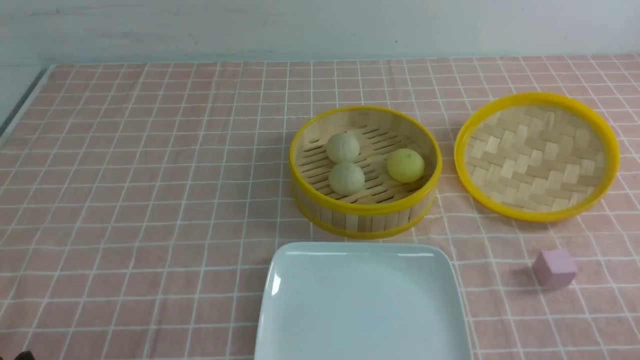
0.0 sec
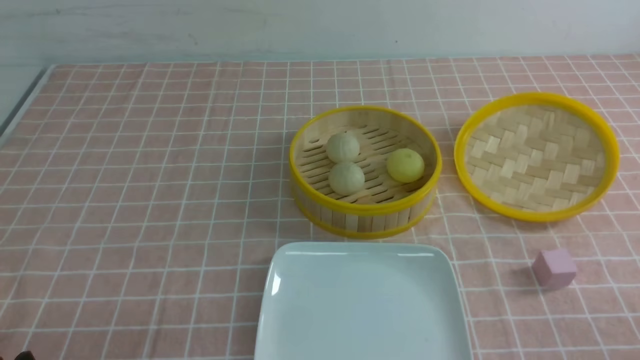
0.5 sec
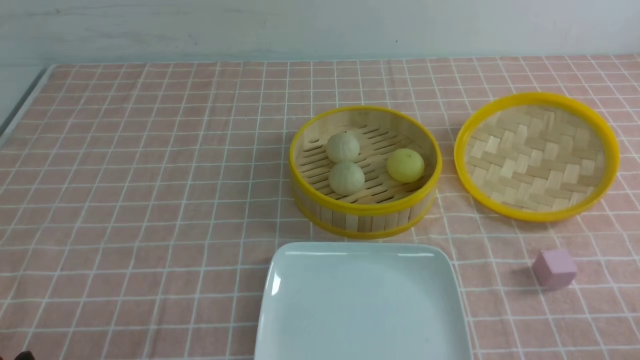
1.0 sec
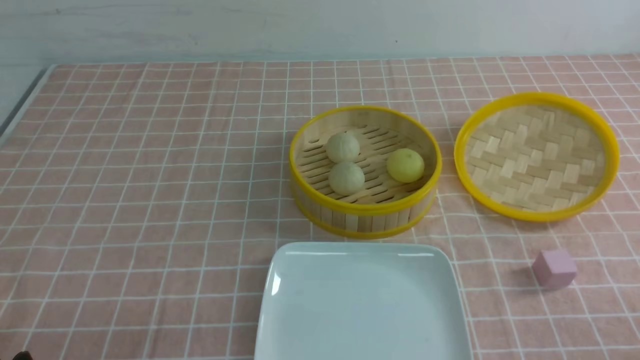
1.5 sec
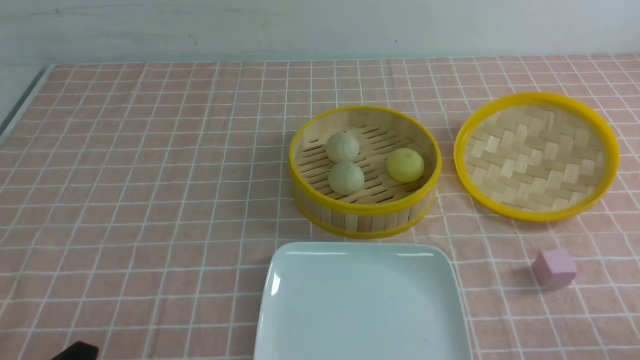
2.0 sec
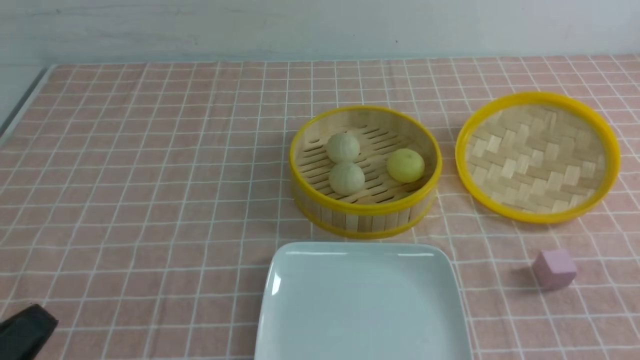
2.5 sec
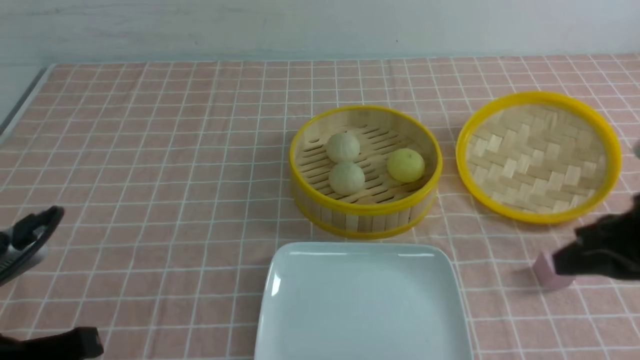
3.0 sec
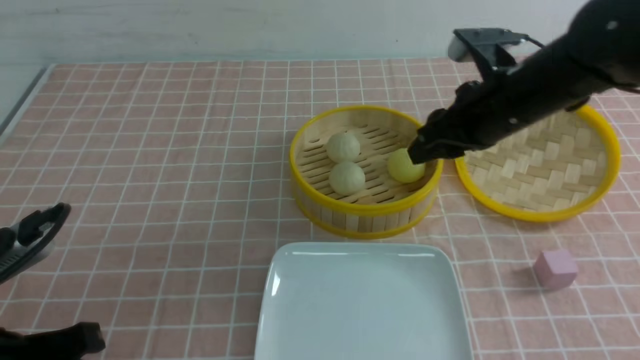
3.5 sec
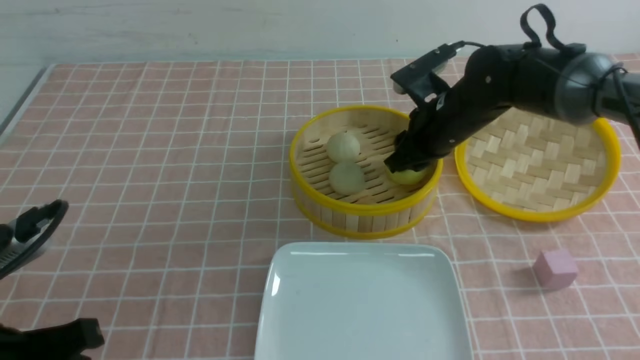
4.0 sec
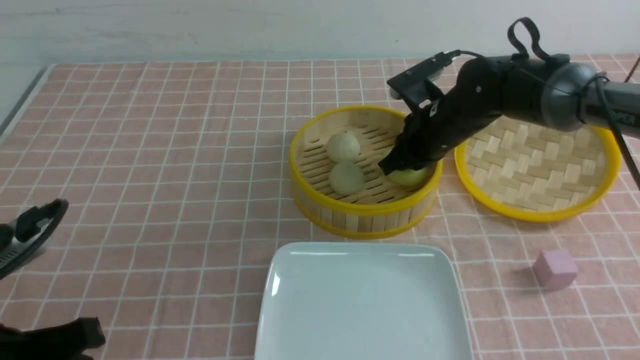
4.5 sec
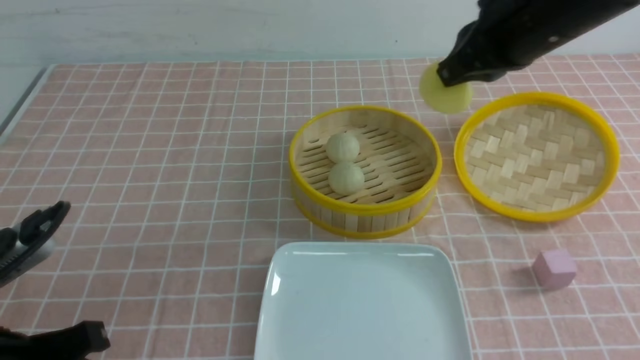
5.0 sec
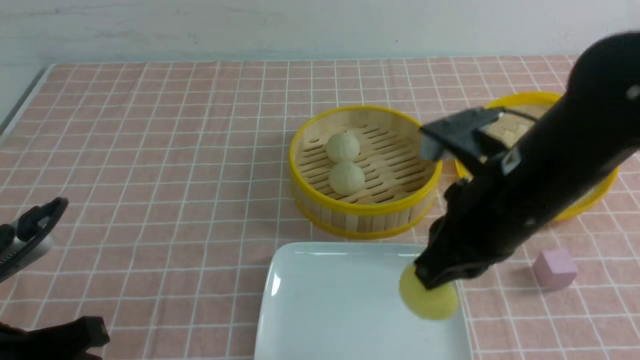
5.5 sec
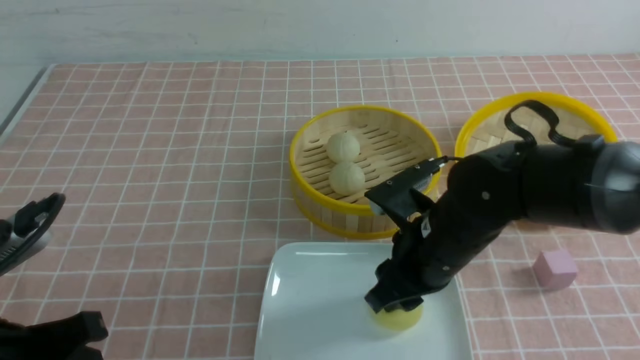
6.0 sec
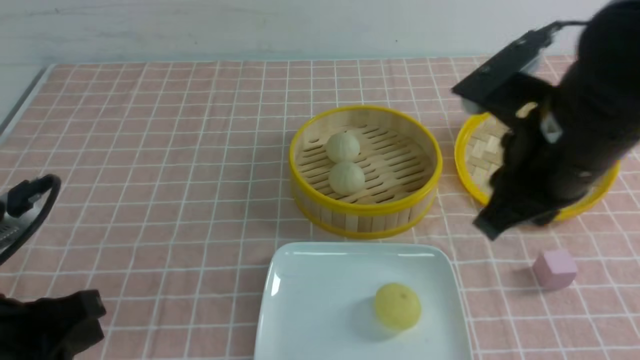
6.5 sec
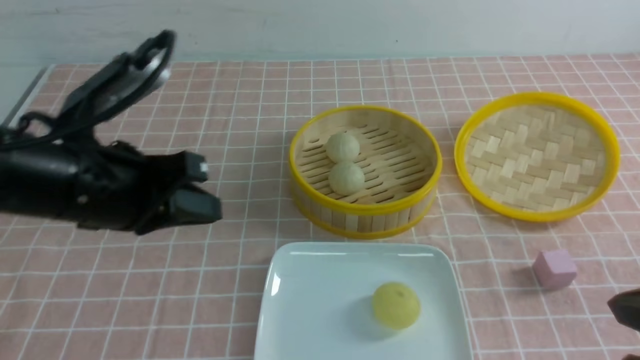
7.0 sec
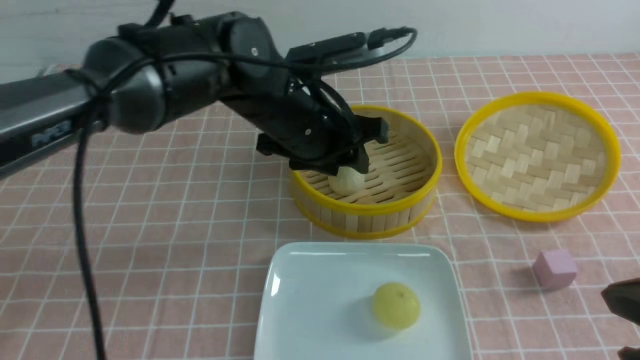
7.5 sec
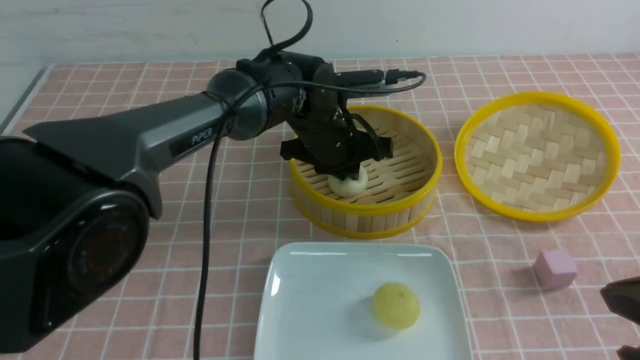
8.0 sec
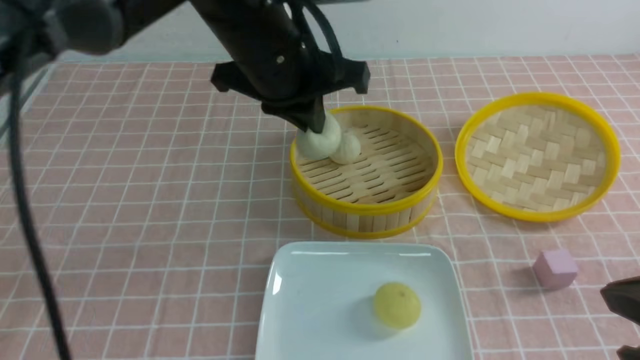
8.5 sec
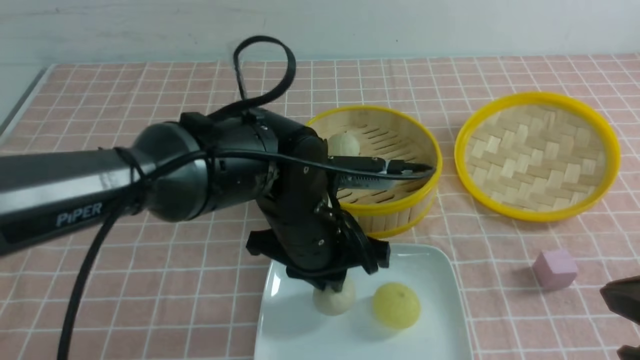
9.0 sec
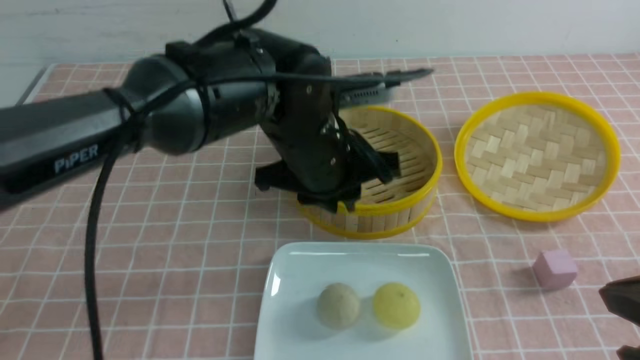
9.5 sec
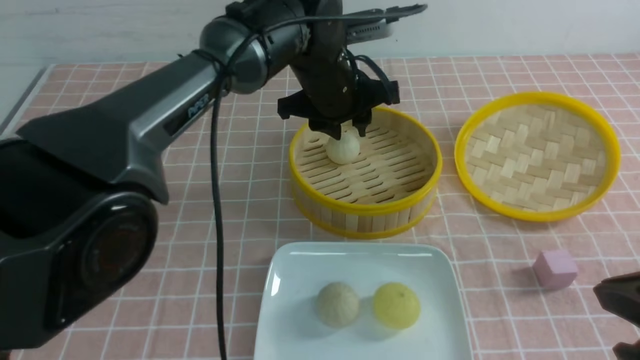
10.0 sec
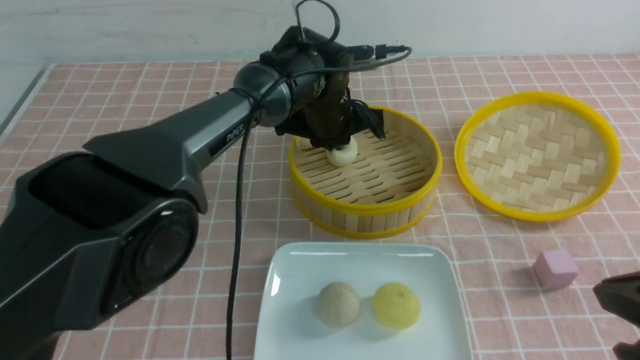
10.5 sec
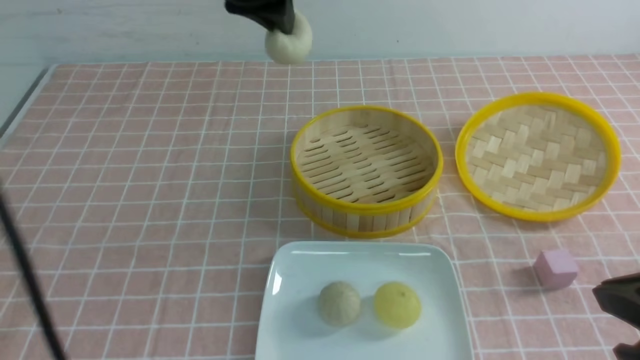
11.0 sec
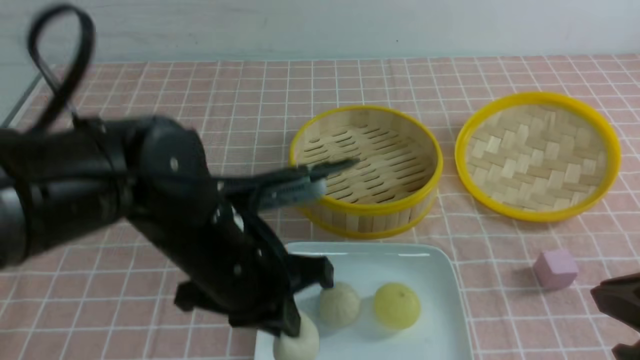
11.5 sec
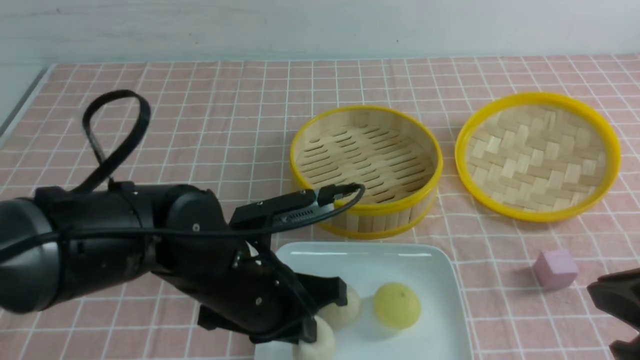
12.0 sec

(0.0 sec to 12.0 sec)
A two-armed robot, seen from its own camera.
Step, 0.0 sec - 4.5 sec: use the right arm to grab the steamed stuffed bun that is closest to it.
Step, 5.0 sec - 6.0 sec: use the right arm to put the steamed stuffed bun into the plate.
Step, 6.5 sec - 8.0 sec: use the left arm to grab the steamed stuffed bun that is closest to it.
Step, 8.5 sec - 9.0 sec: use the left arm to put the steamed stuffed bun into the plate.
Step, 9.5 sec - 10.5 sec: use the left arm to grab the steamed stuffed bun that is closest to it.
2.0 sec - 4.0 sec: The left gripper is displaced upward and forward by approximately 10 cm, and closes up. Meanwhile the right gripper shifts approximately 40 cm forward and to the left, and closes, then reopens.
4.0 sec - 6.0 sec: The right gripper shifts approximately 15 cm backward, and closes, then opens again.
6.0 sec - 8.0 sec: The right gripper moves backward, to the right and upward, approximately 25 cm, and closes its fingers. The left gripper shifts about 40 cm forward and to the right, and opens, then closes once more.
8.0 sec - 10.0 sec: The left gripper reaches about 15 cm backward, then returns, and opens up.
10.0 sec - 12.0 sec: The left gripper is displaced backward by about 20 cm, and closes.

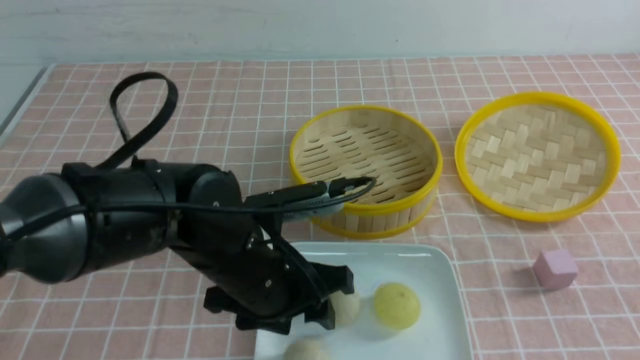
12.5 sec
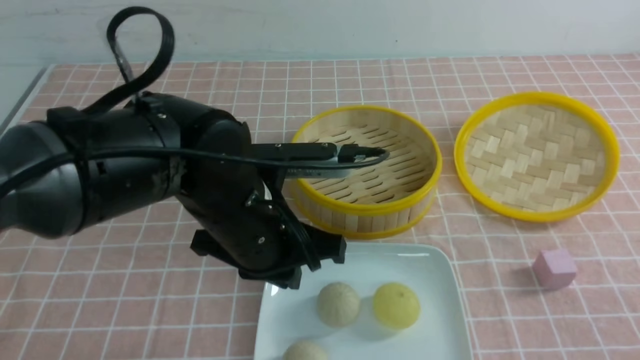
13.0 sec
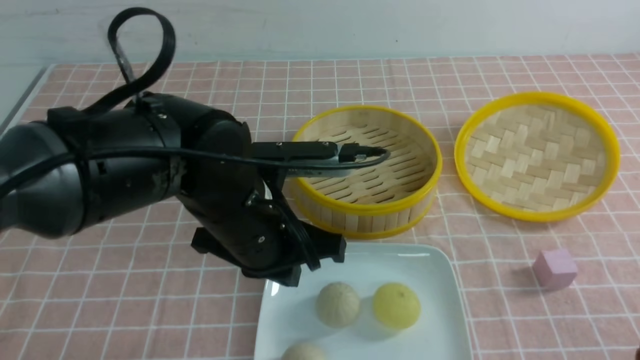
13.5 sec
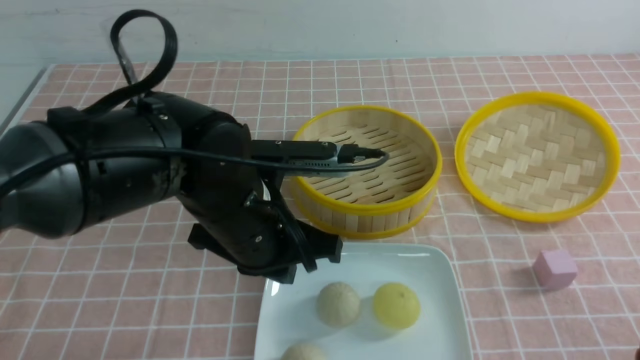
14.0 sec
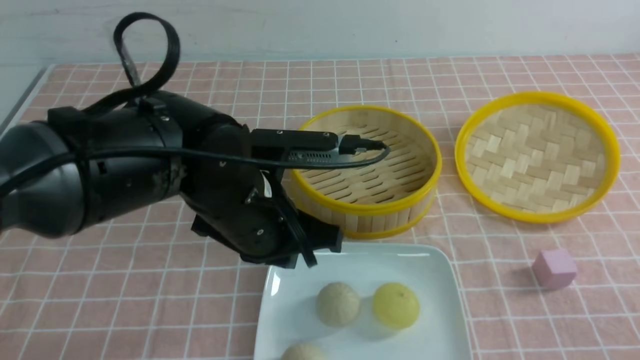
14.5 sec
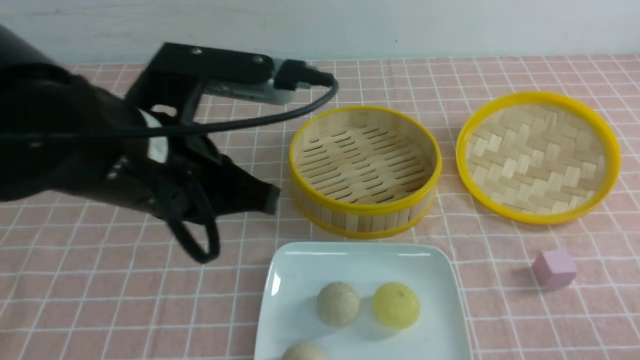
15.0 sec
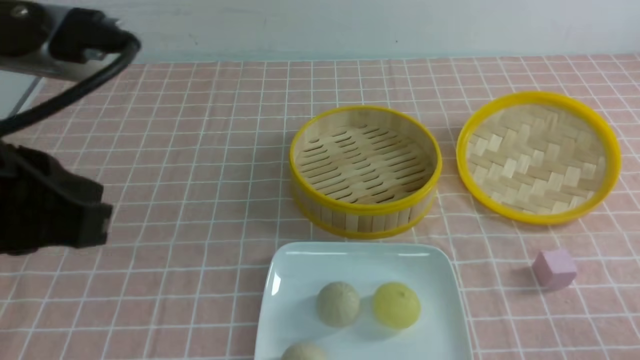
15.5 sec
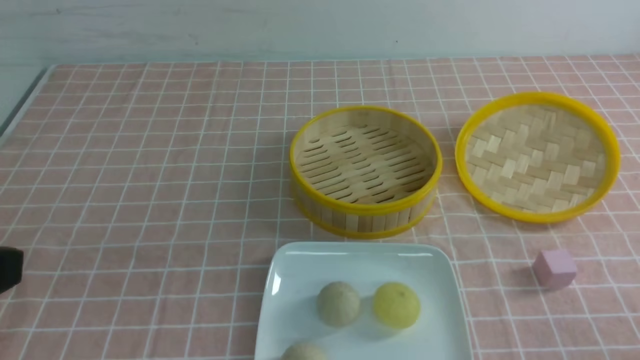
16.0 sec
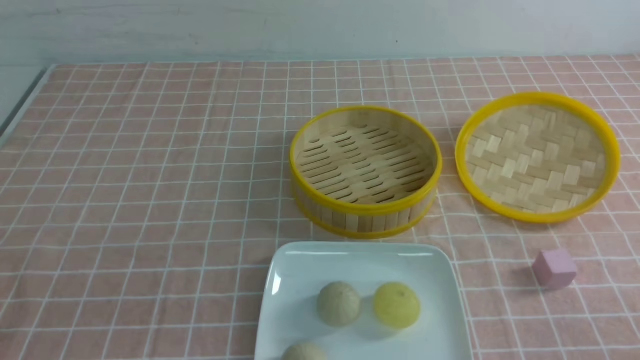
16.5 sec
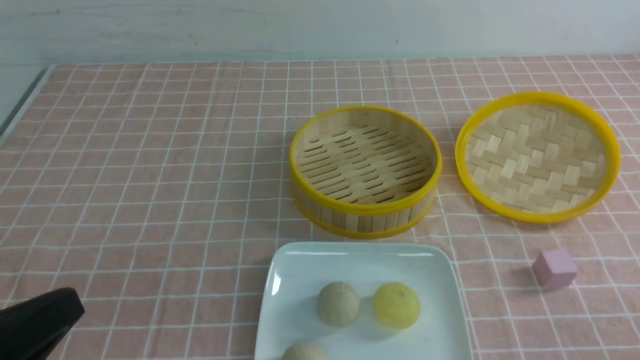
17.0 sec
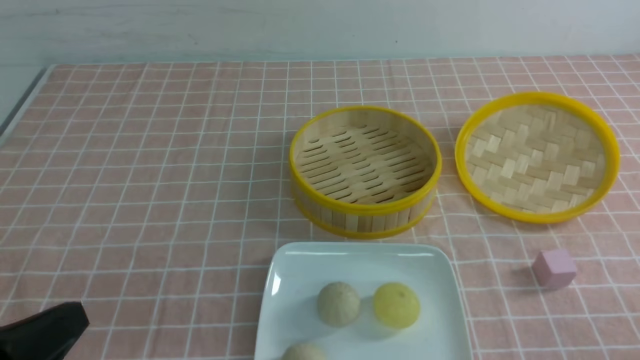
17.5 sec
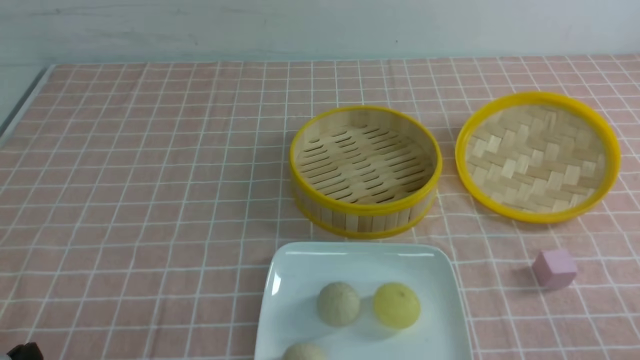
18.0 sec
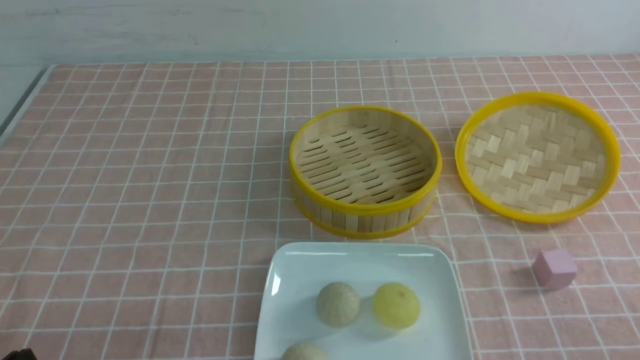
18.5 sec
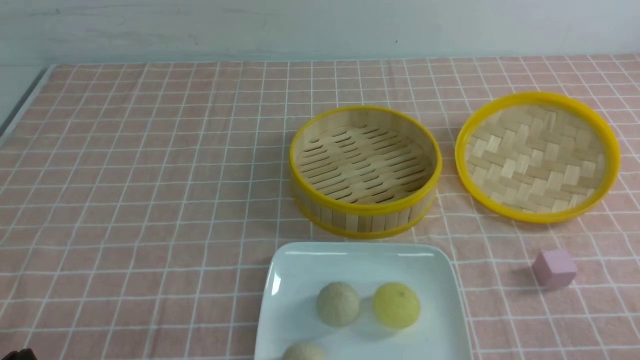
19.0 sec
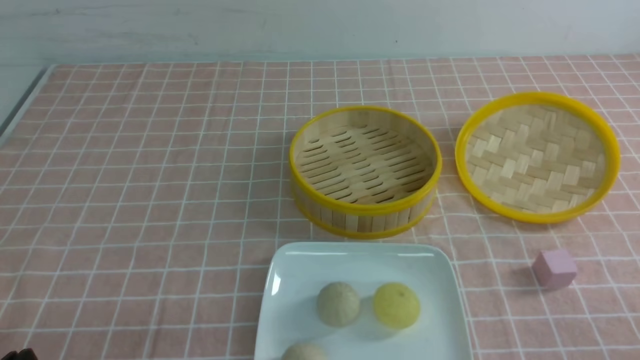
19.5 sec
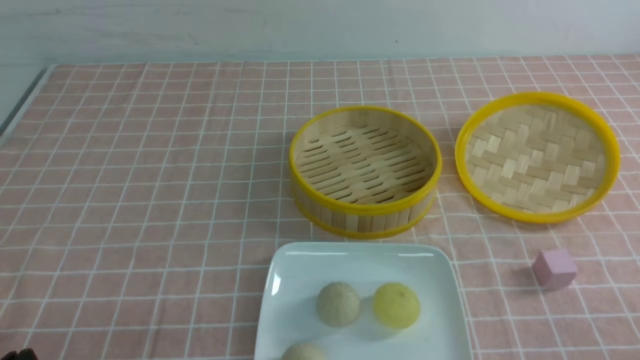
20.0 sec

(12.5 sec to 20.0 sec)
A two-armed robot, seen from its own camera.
12.5 sec - 14.5 sec: The right gripper heads downward, covering about 10 cm; the left gripper moves roughly 5 cm, and closes.
14.5 sec - 16.5 sec: The left gripper moves backward and to the left, about 30 cm.
18.0 sec - 20.0 sec: Both grippers stay put.
